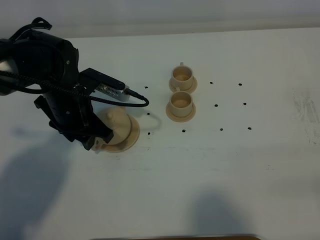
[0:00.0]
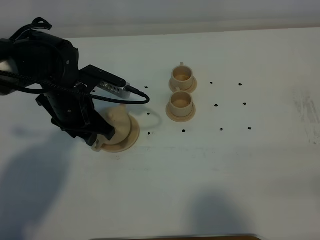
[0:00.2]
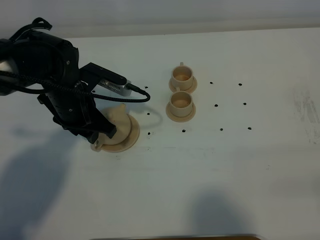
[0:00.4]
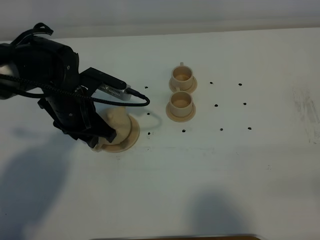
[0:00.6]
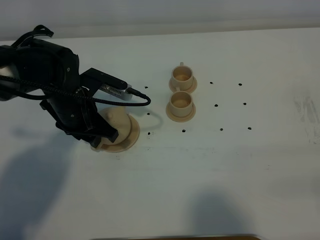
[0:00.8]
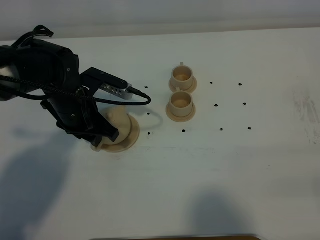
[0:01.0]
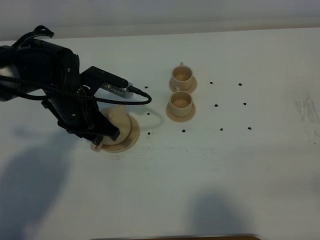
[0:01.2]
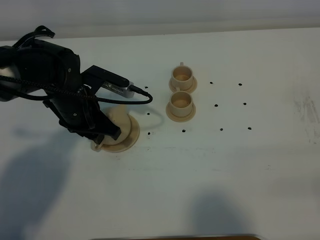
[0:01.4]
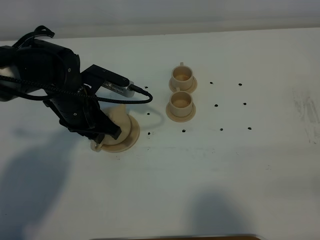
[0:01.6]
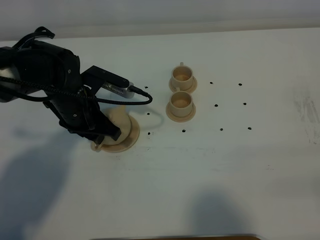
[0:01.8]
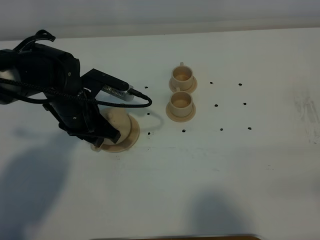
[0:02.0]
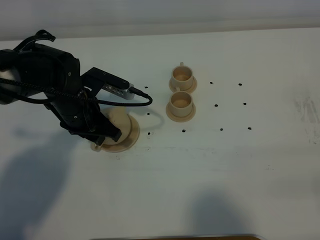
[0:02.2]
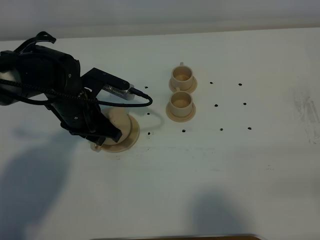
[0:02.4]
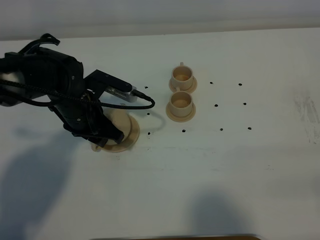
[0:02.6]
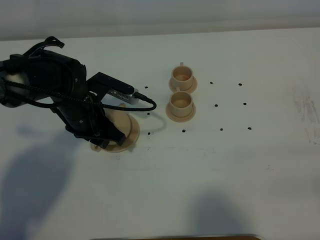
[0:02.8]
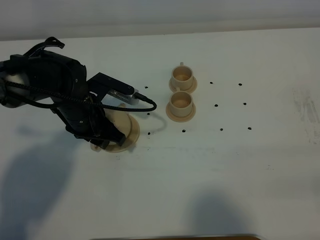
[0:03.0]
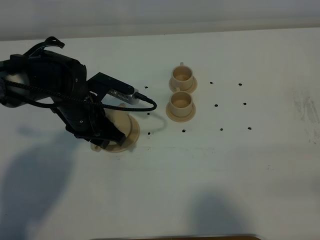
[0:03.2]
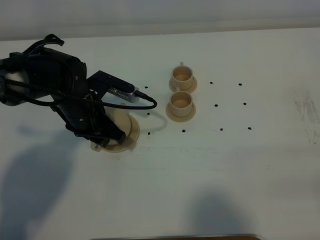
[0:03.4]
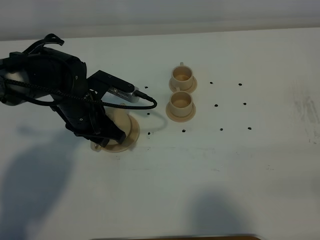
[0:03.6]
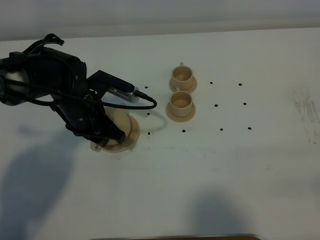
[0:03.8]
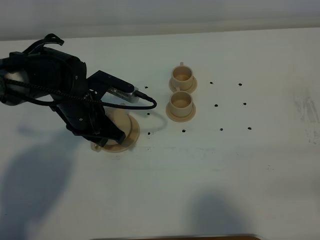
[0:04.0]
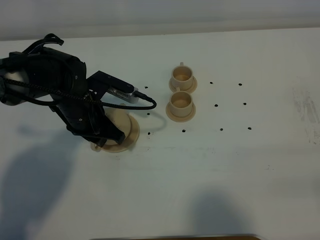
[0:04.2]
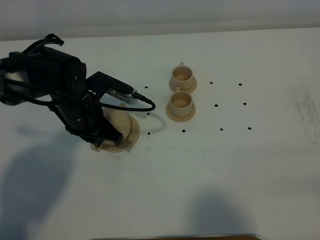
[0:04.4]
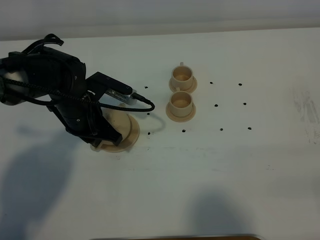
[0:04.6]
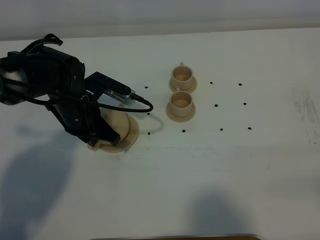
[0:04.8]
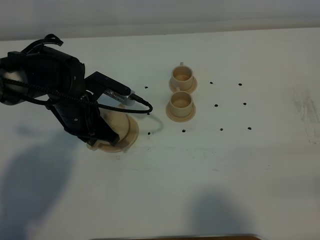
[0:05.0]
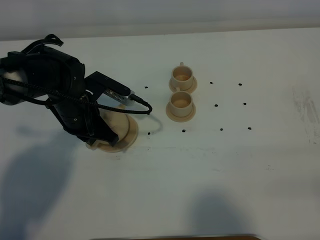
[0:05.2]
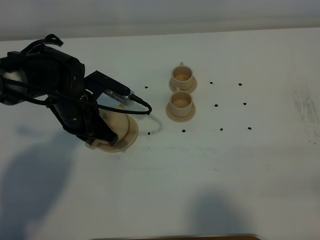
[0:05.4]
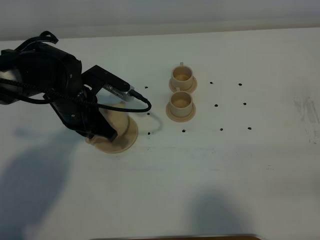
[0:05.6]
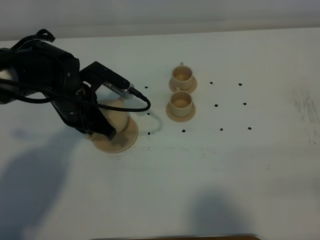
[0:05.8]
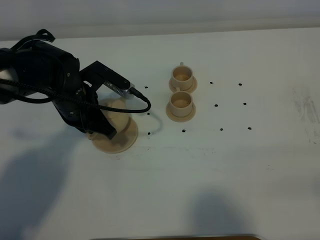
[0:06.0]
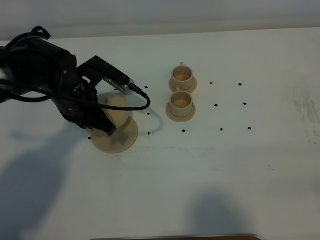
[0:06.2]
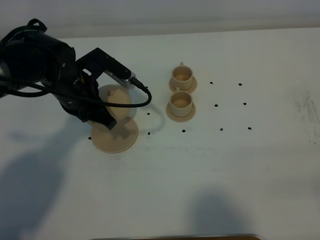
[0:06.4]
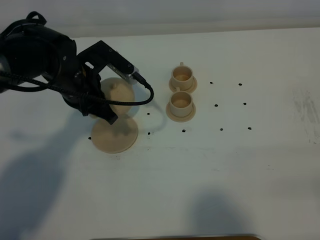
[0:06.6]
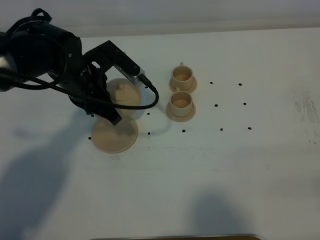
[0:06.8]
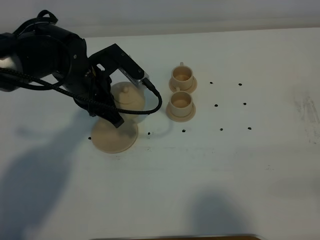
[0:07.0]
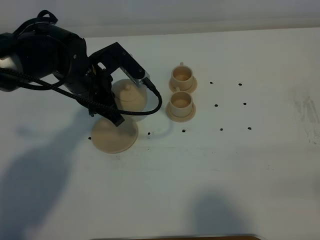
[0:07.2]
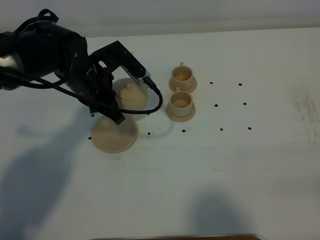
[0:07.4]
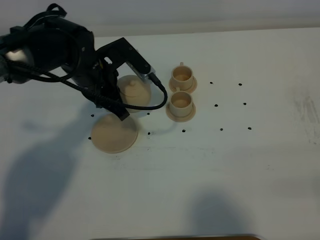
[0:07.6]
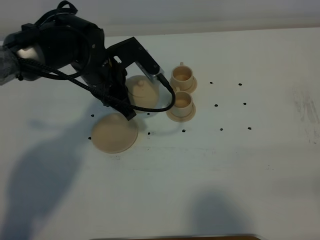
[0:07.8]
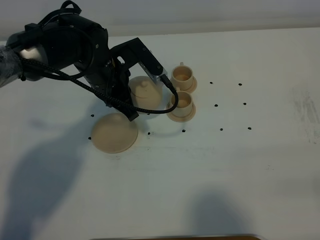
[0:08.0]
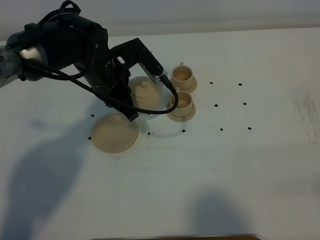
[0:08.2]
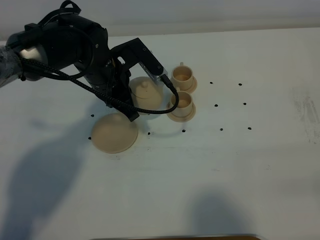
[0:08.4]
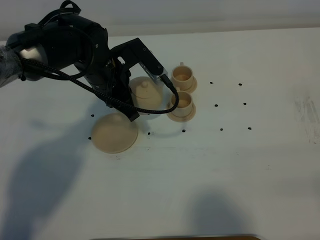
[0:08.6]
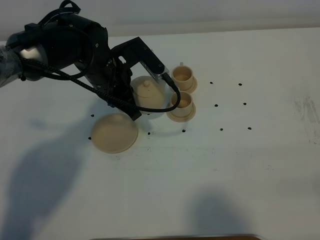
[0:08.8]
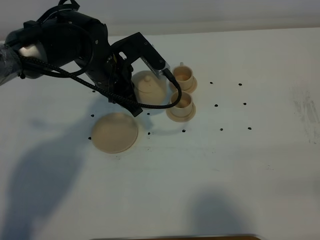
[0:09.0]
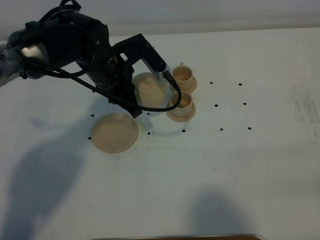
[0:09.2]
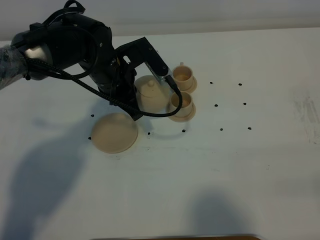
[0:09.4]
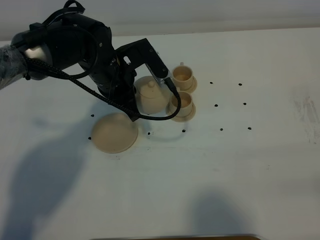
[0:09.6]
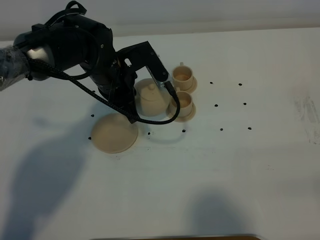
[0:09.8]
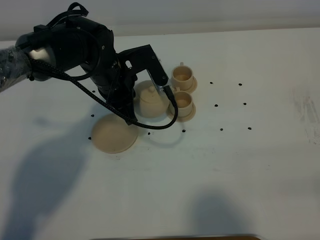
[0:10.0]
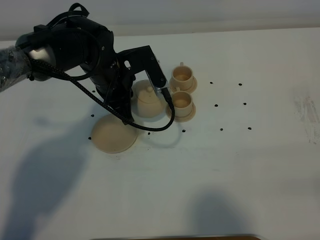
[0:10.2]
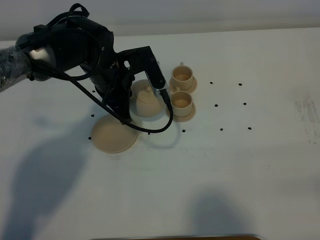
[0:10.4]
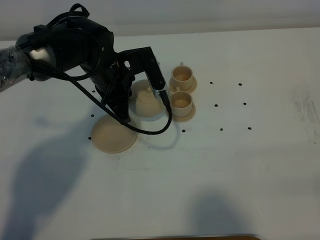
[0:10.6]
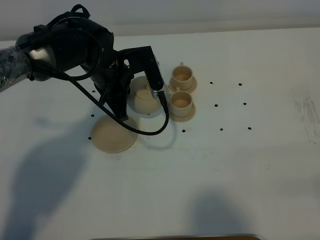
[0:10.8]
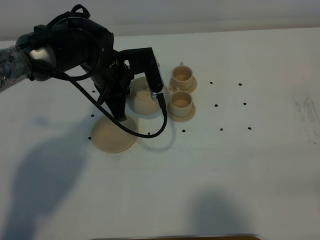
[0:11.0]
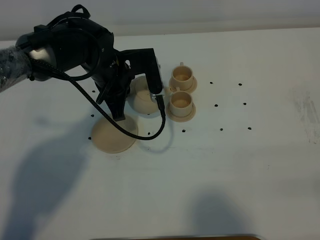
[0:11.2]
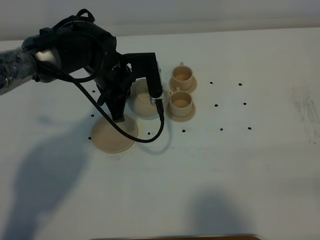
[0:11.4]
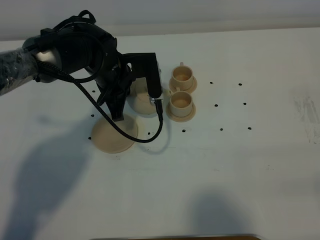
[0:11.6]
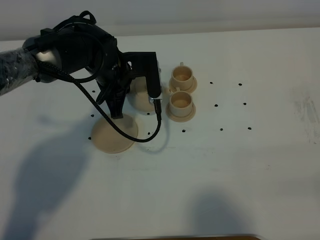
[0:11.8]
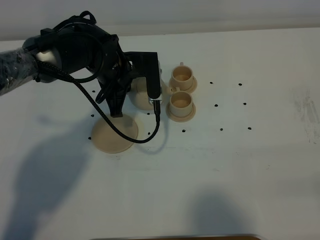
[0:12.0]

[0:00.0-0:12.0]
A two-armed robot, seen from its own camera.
Task of the whole recording: grasp the brown teapot and pour the tea into the two brown teacups one by one, put the brown teapot back in its original place.
Step, 0:00.0 to 0:06.0: Pick up the teapot with the left gripper.
0:00.0 to 0:03.0: There are only small adjustments of the grippers.
0:03.0 to 0:04.4: Both grippers stay put.
0:04.4 to 0:06.0: The grippers move only a little.
0:06.0 to 0:07.6: The left gripper changes place by roughly 5 cm.
0:07.6 to 0:10.4: The grippers stay close to where they were, moving slightly.

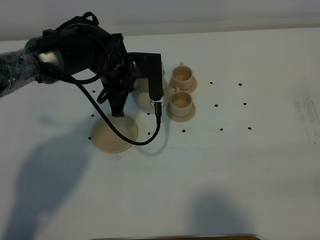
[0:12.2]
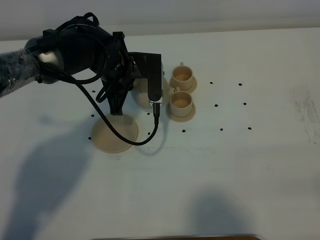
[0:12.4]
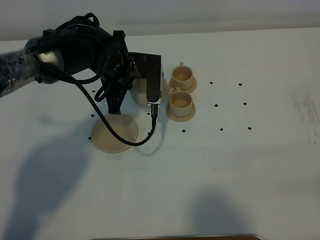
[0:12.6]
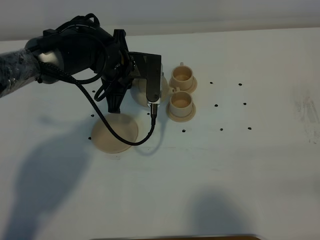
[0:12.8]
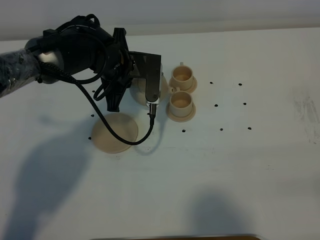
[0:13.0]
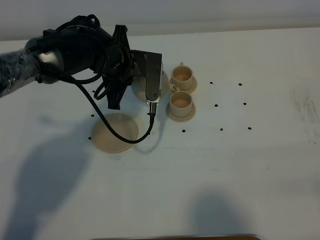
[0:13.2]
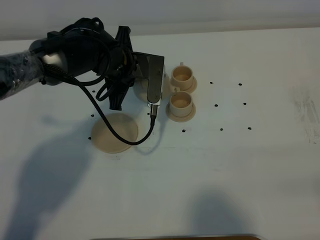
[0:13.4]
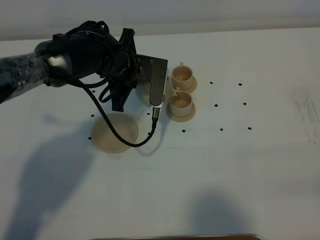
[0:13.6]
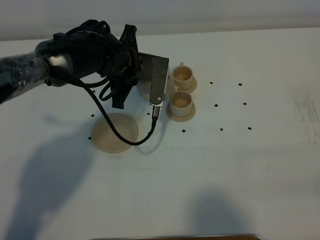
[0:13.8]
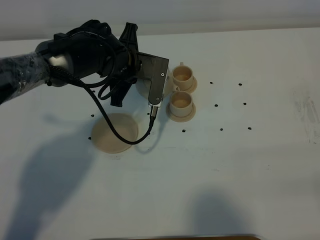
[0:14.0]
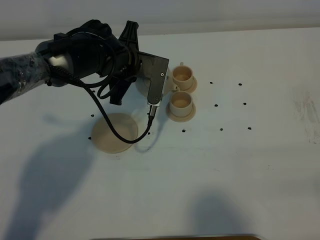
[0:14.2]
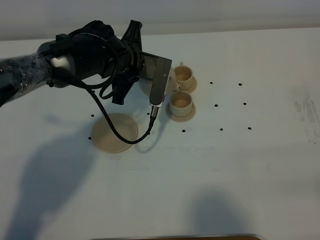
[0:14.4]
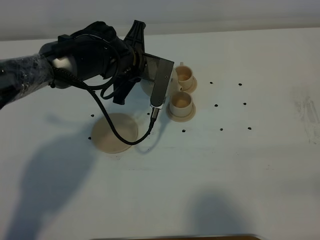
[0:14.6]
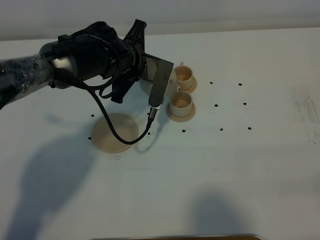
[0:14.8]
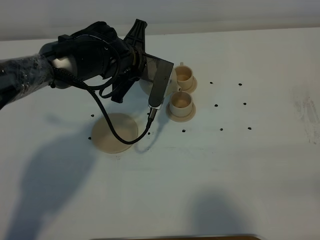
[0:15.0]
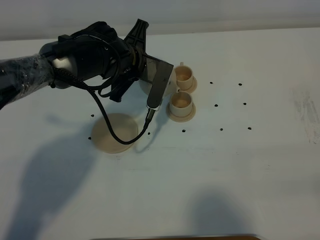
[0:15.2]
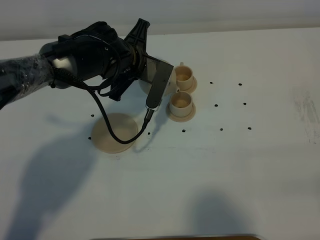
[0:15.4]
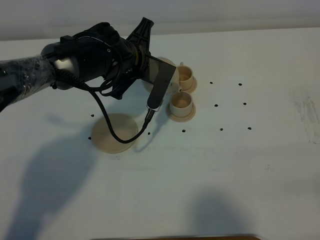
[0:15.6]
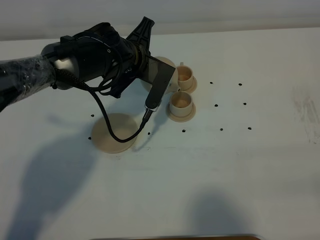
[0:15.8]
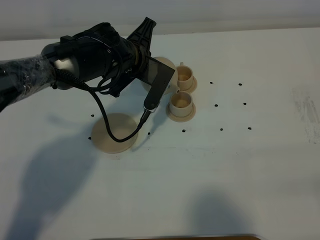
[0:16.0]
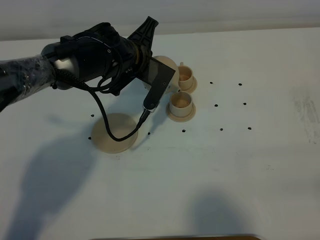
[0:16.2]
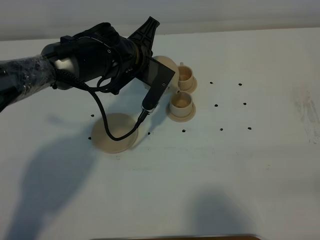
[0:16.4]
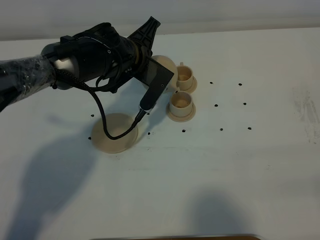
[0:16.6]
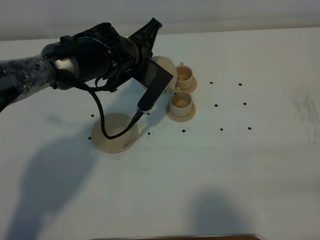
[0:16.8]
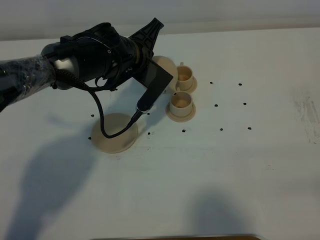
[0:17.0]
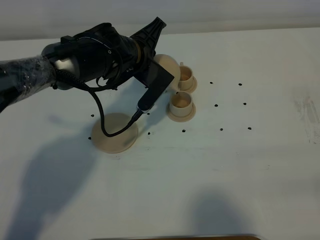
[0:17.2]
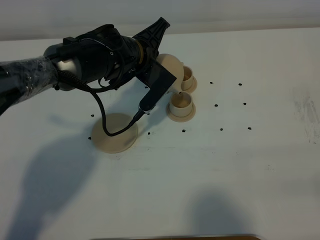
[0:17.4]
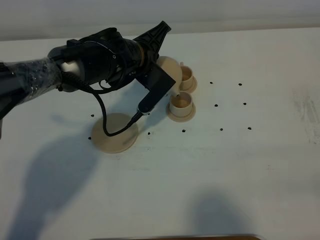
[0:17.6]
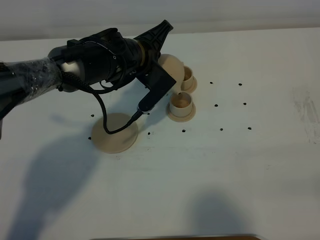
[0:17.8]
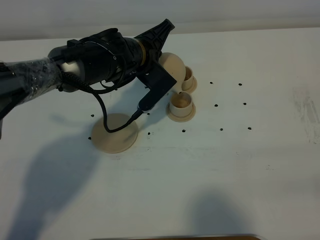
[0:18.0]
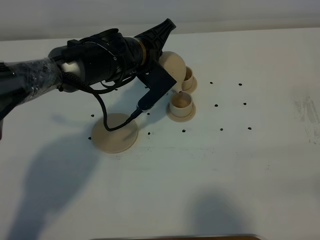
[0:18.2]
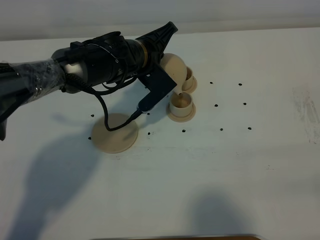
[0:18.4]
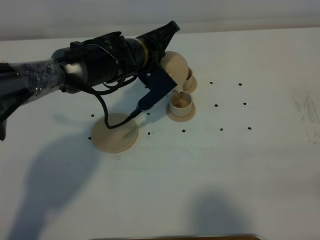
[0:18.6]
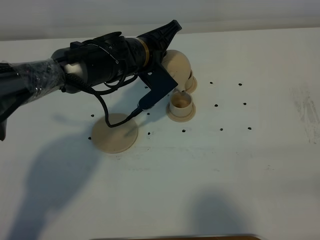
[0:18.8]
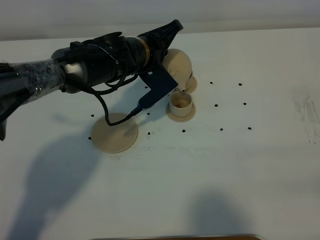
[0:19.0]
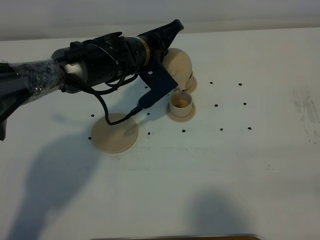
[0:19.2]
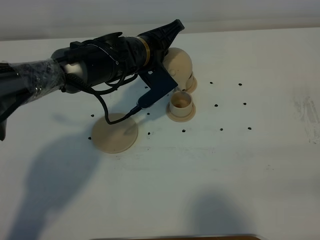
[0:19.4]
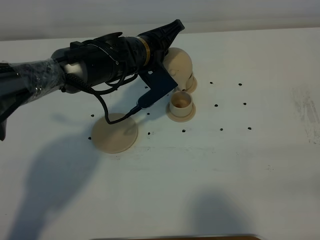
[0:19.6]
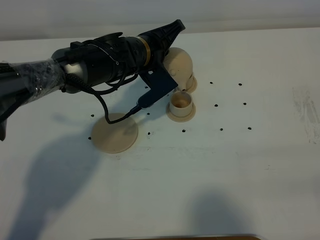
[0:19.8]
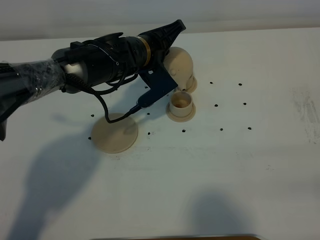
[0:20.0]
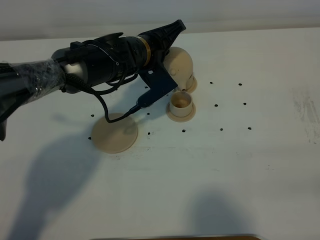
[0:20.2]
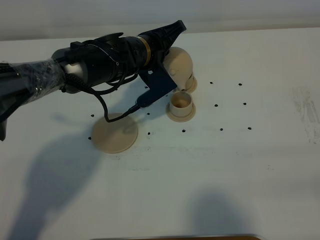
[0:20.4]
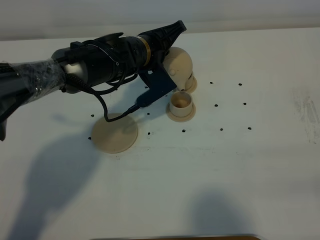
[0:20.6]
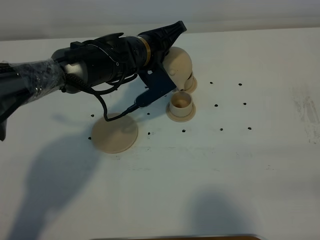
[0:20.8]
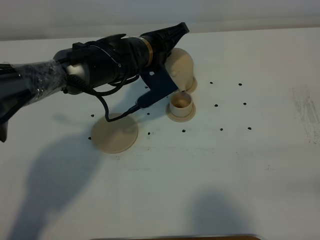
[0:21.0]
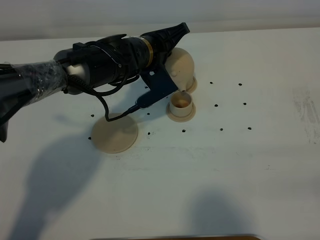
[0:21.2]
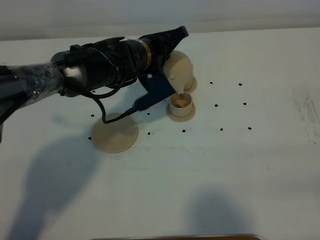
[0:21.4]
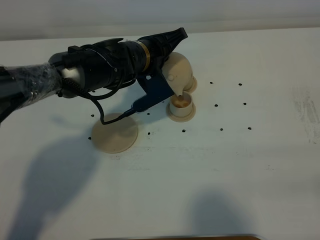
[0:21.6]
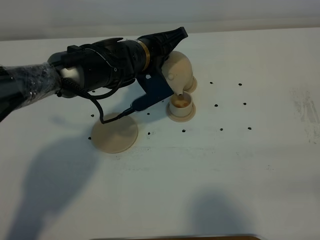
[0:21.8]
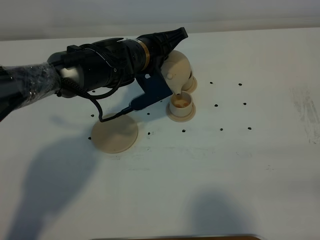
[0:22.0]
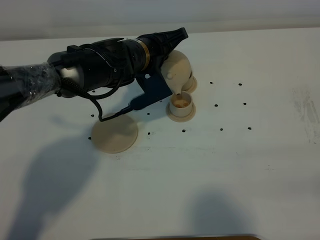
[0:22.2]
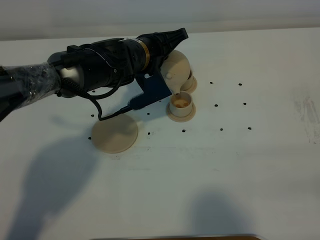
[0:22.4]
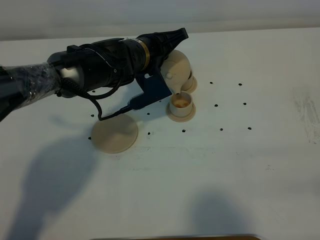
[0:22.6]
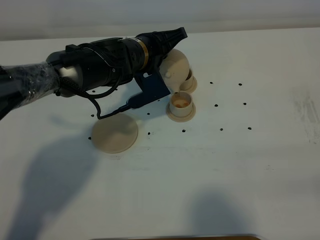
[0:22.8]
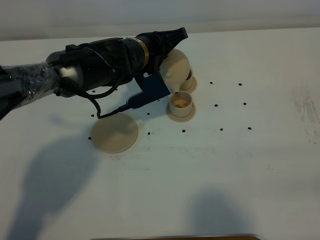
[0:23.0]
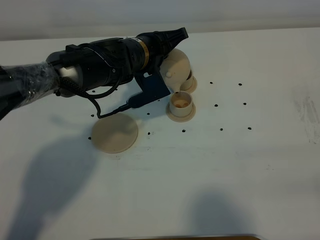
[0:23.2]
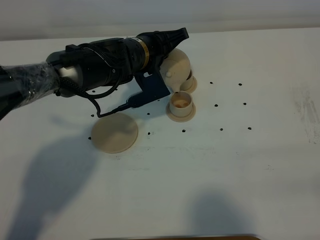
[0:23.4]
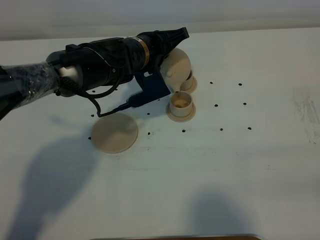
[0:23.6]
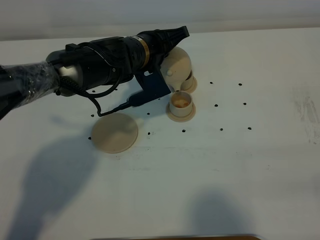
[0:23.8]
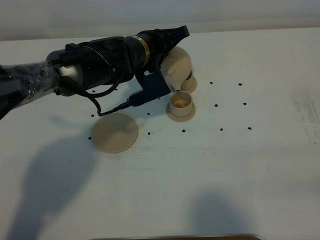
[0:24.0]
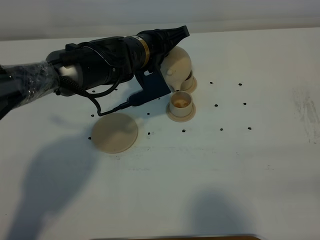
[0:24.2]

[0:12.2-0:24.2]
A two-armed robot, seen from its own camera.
Task of the whole recording: grasp the brown teapot and pour the tea into the two brown teacups one by one, put the brown teapot back in its original place.
0:12.2 to 0:13.8: The grippers make only small movements.
0:13.8 to 0:15.2: The grippers make only small movements.
0:15.2 to 0:16.6: The grippers make only small movements.
0:16.6 to 0:18.2: The grippers make only small movements.
0:18.2 to 0:22.6: The grippers move only a little.
0:22.6 to 0:24.2: Both grippers stay about where they are.
